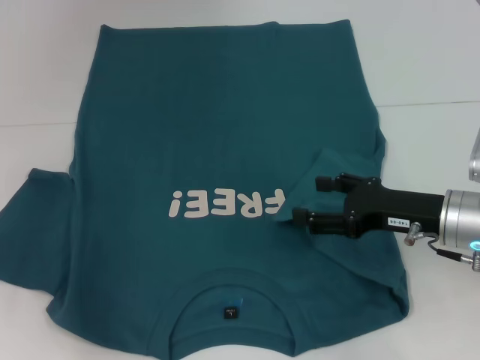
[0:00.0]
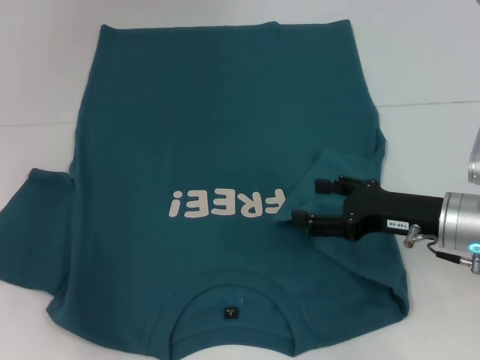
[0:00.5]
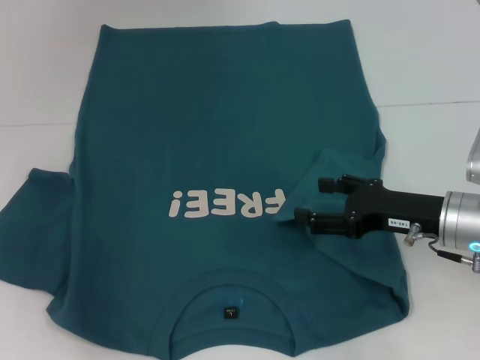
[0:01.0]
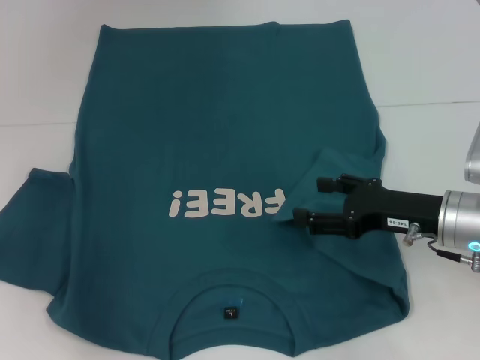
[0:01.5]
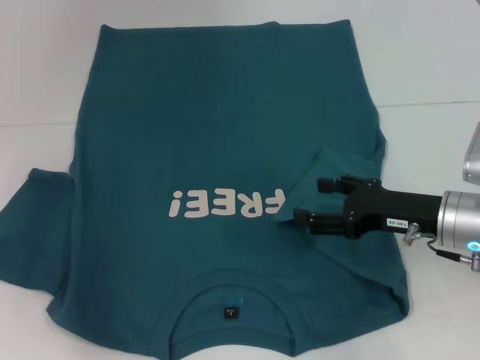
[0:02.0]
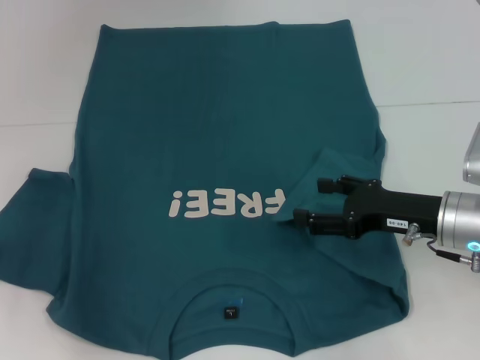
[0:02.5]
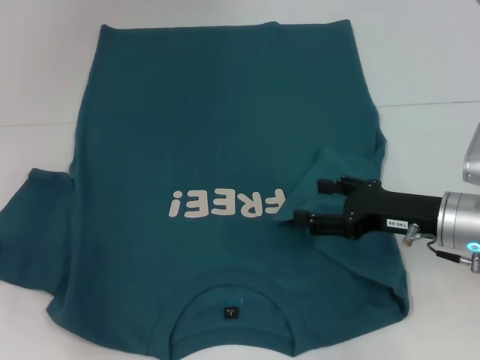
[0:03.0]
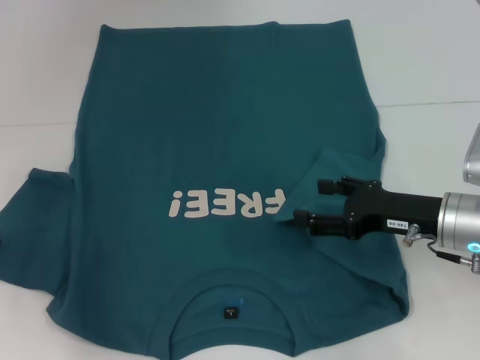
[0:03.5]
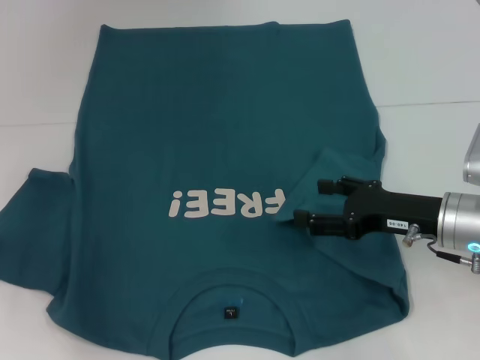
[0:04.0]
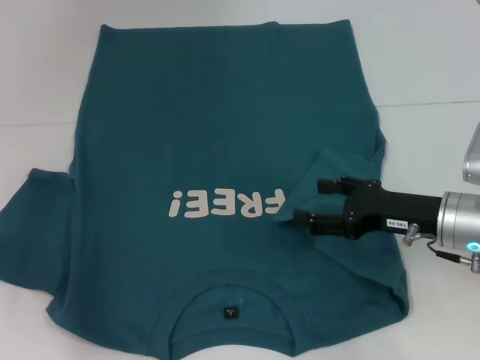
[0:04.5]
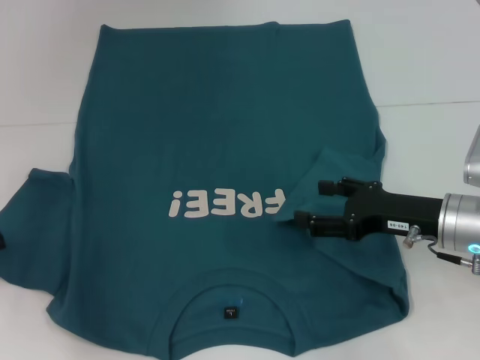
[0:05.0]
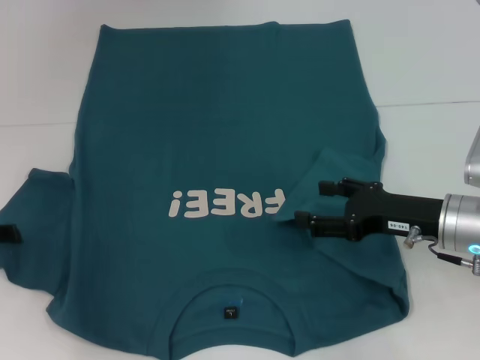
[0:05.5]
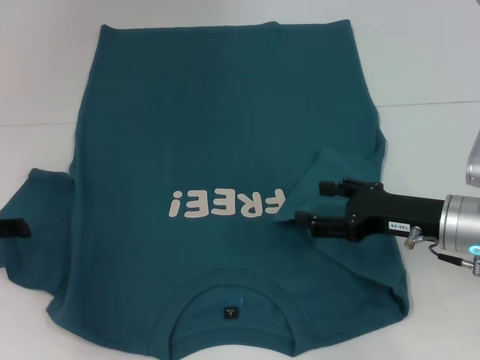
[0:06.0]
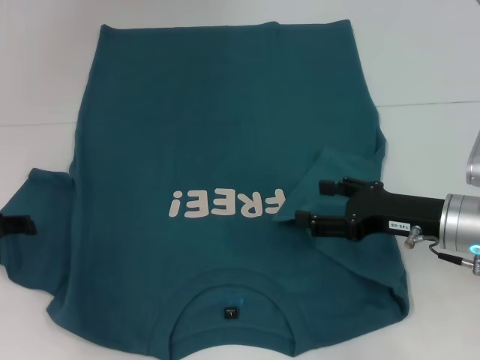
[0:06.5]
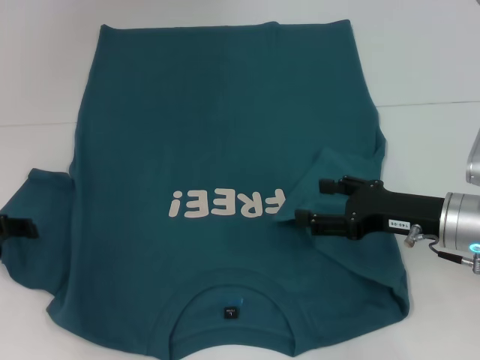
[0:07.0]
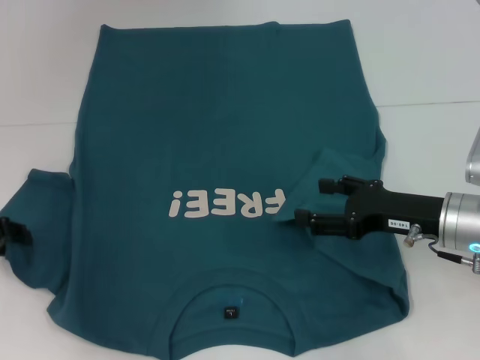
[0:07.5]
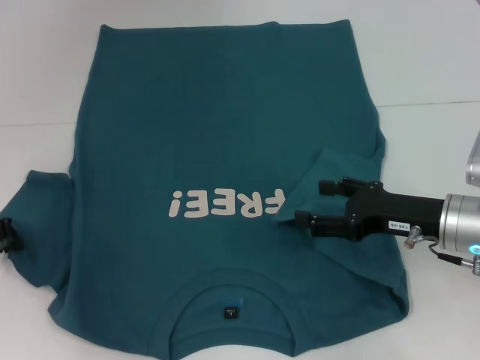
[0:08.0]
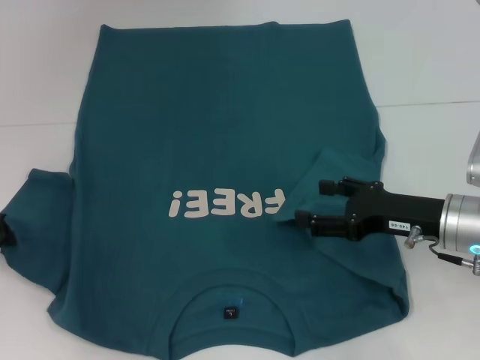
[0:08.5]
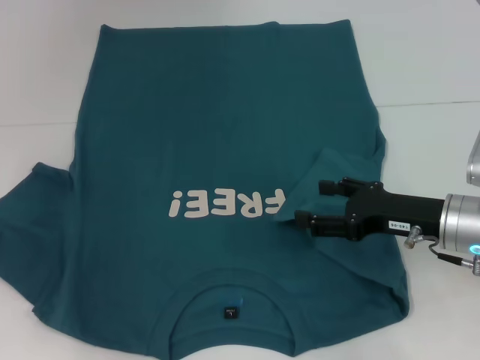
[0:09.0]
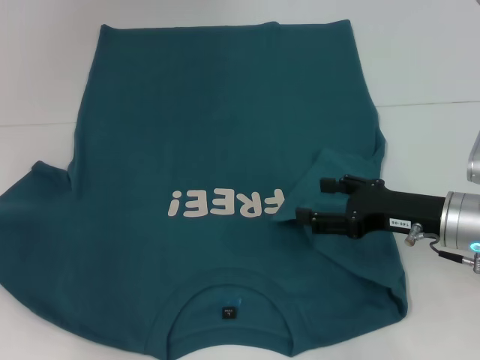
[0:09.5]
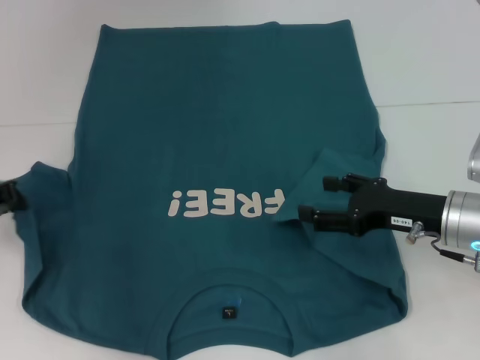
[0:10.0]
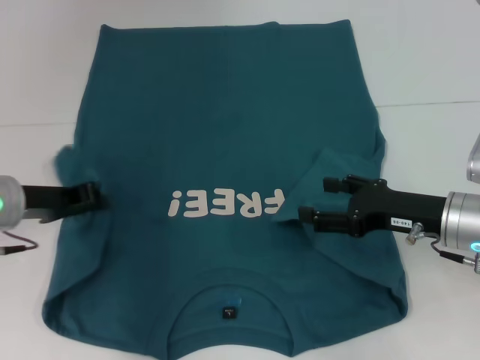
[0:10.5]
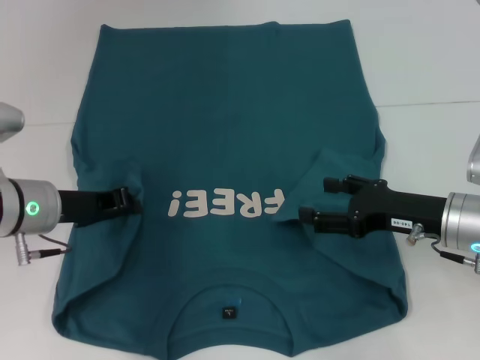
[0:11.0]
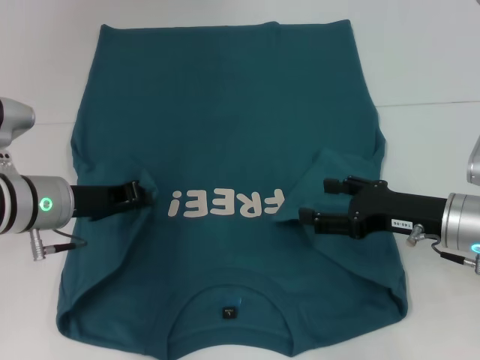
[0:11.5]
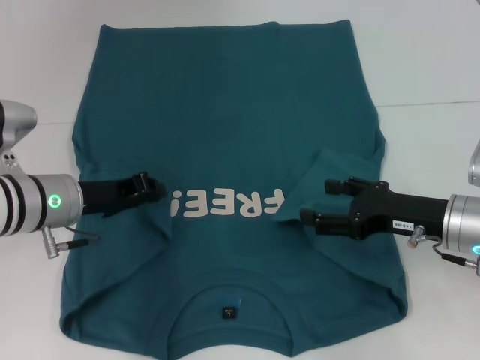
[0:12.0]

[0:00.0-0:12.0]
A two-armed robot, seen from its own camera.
0:04.0 to 0:06.0: The grippers make only small movements.
0:06.0 to 0:08.0: The left gripper closes up.
0:08.0 to 0:10.0: The grippers move only a little.
0:10.0 to 0:12.0: The left gripper is displaced to the right by approximately 10 cm.

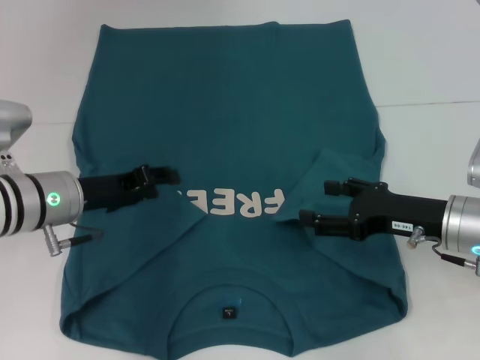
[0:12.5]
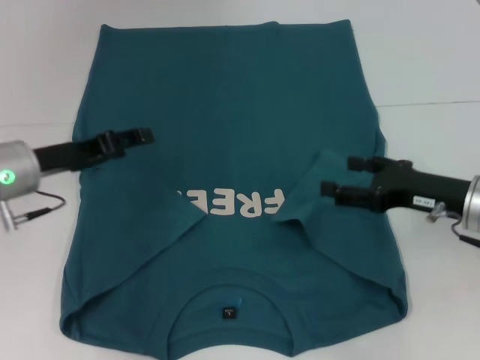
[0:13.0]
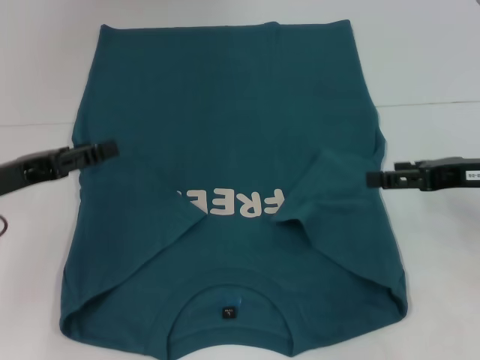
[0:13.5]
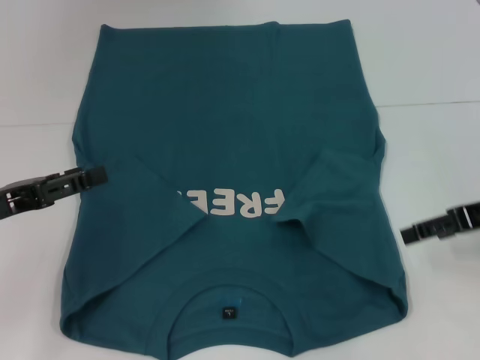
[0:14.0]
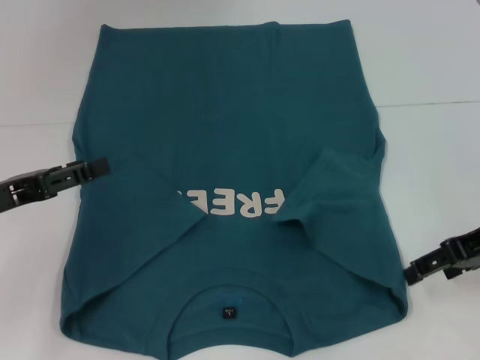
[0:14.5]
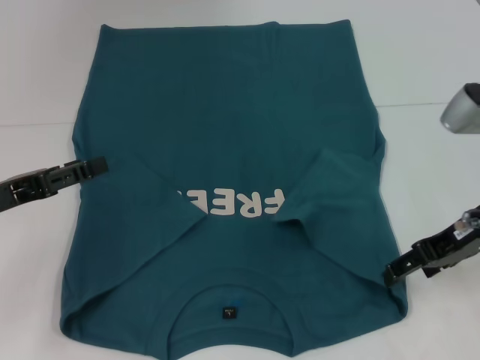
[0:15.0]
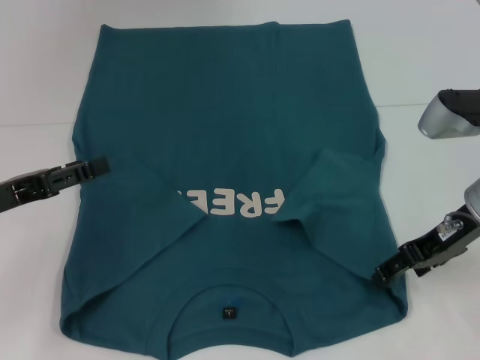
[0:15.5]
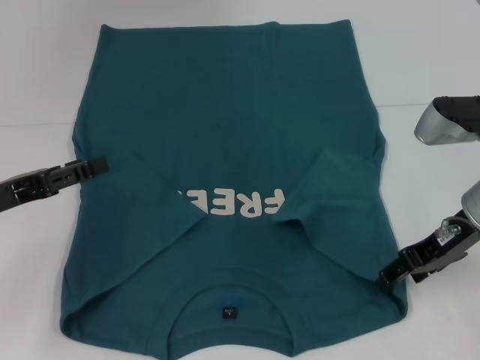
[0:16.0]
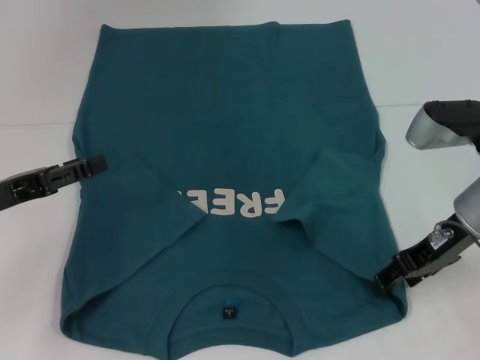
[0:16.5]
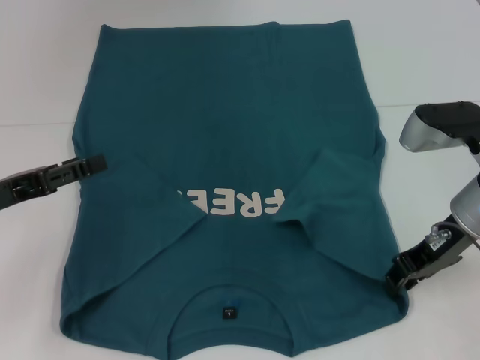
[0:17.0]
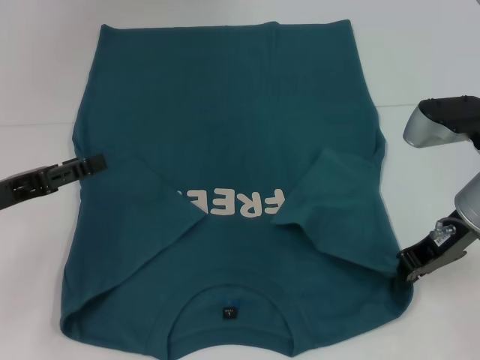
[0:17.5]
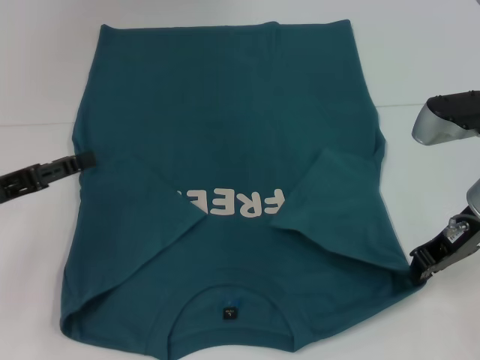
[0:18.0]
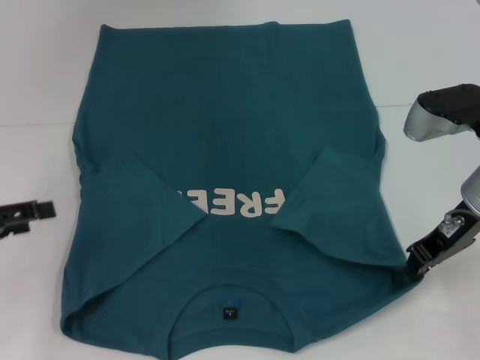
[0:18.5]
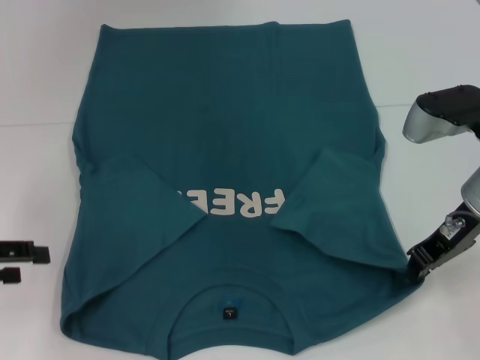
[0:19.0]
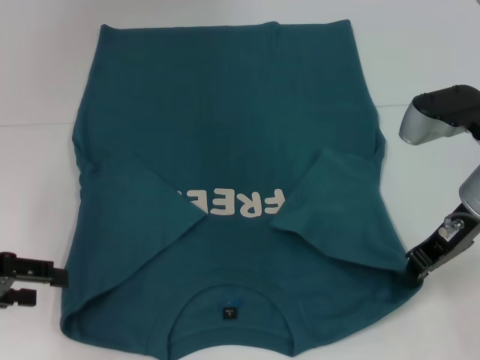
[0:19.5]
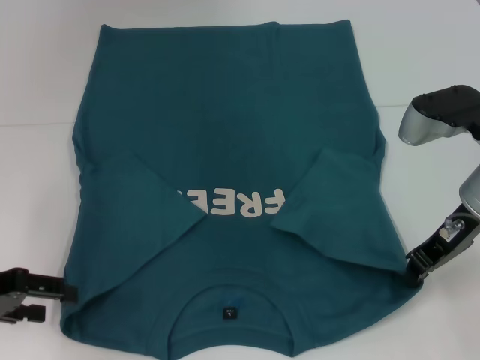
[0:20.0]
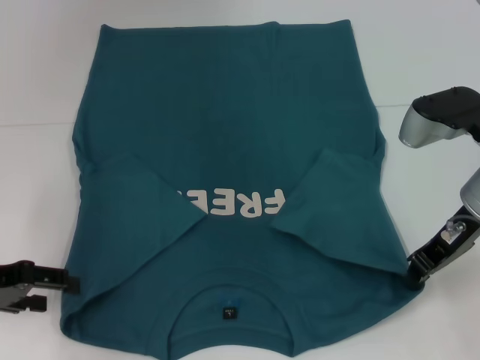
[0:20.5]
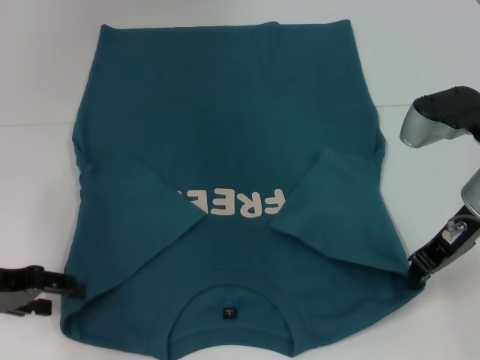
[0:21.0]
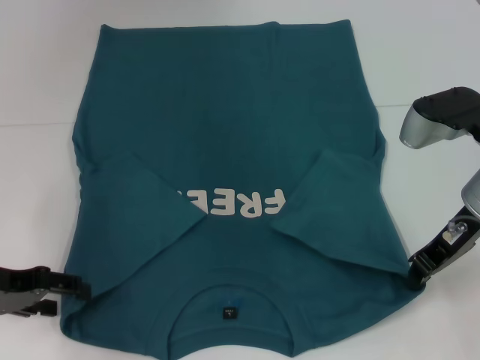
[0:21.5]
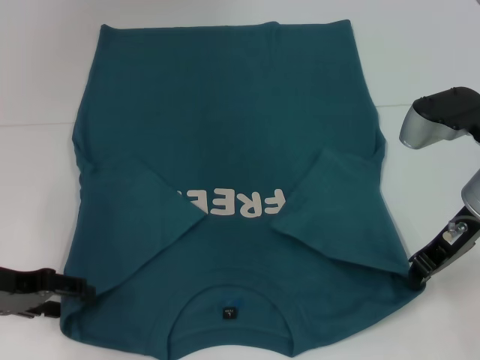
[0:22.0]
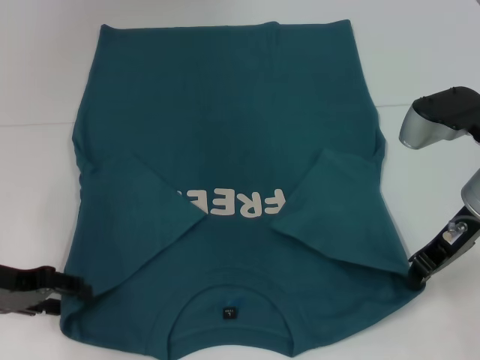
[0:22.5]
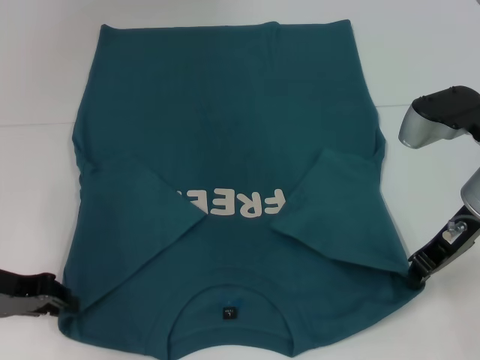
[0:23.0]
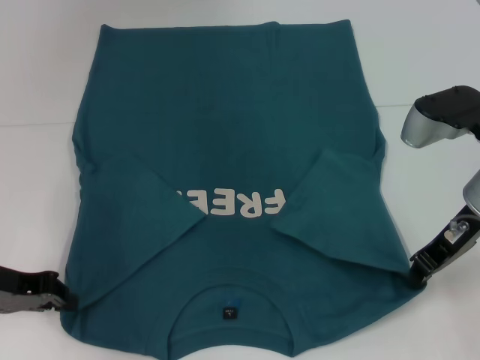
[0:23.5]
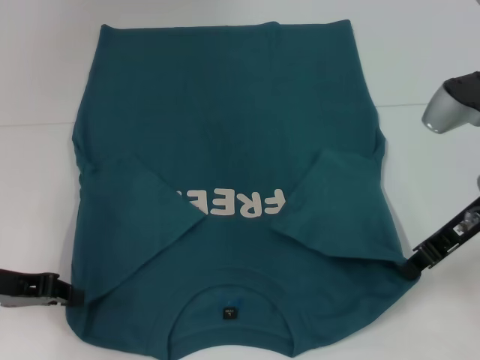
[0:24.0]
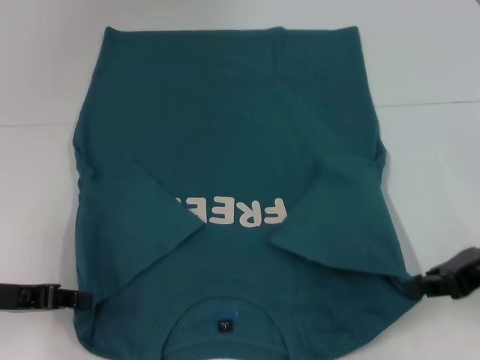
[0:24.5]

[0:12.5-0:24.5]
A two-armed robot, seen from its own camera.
Step, 0:13.0 to 0:18.0: Grab the bottom right corner with your right hand.
Step, 0:18.5 to 0:24.0: Grab the bottom left corner with your left hand.
0:12.5 to 0:14.5: The right gripper is displaced upward by some 10 cm. Meanwhile the left gripper travels to the left and backward by some 10 cm, and opens its fingers.
0:14.5 to 0:16.5: The right gripper moves to the left, approximately 5 cm.
0:16.5 to 0:18.5: The right gripper closes.
0:20.5 to 0:22.5: There are only small adjustments of the grippers.
0:22.5 to 0:24.5: The right gripper heads to the right and backward, covering some 10 cm; the left gripper closes its fingers.

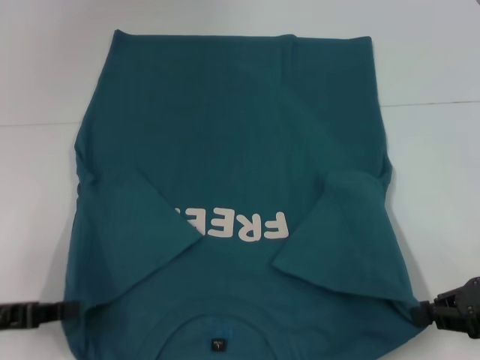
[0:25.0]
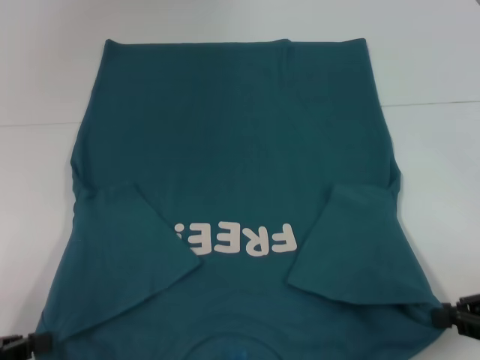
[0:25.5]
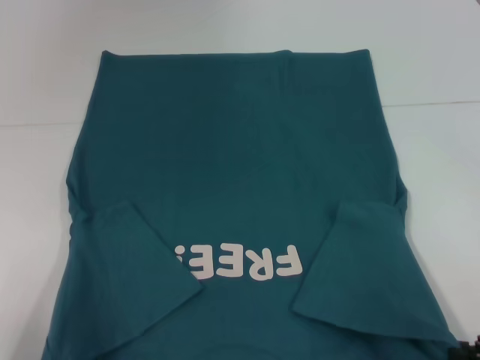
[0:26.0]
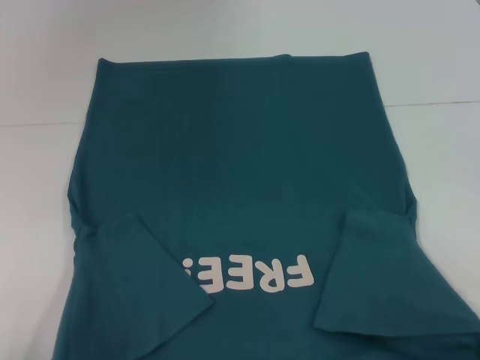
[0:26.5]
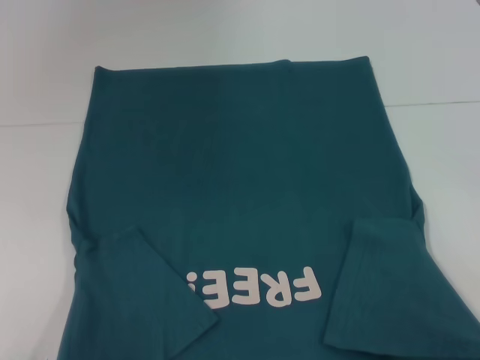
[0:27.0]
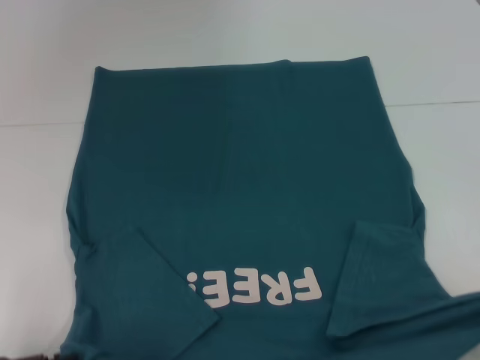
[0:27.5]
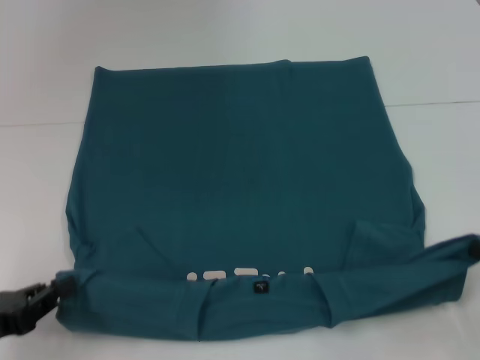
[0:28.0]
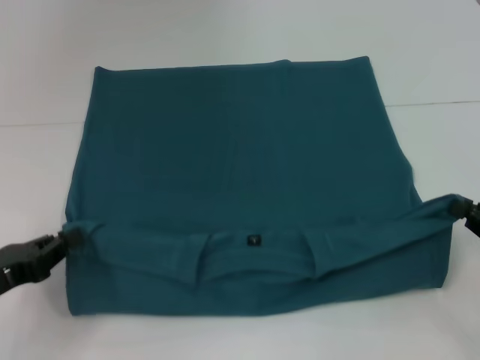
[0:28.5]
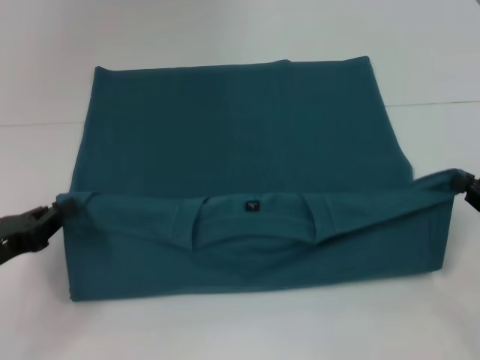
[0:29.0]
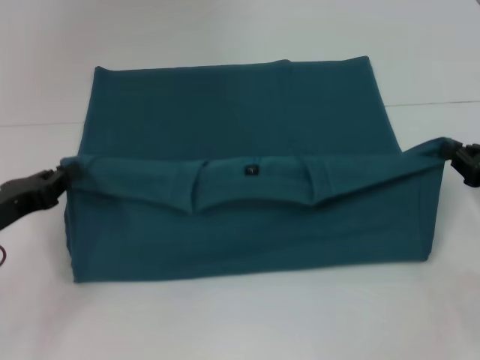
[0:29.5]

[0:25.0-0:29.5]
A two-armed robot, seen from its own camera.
0:25.0 to 0:27.0: The right gripper shifts approximately 15 cm backward and to the right, while the left gripper shifts some 15 cm backward.
0:27.0 to 0:29.5: Both grippers travel together forward, some 20 cm.
